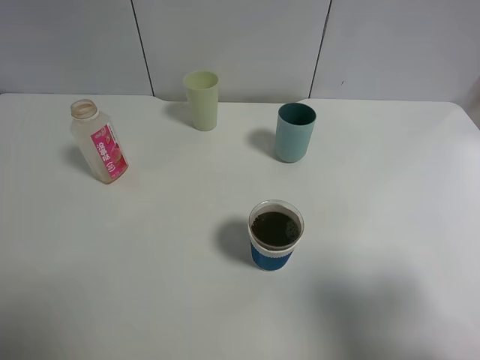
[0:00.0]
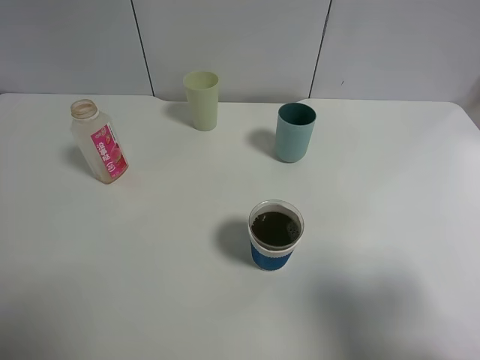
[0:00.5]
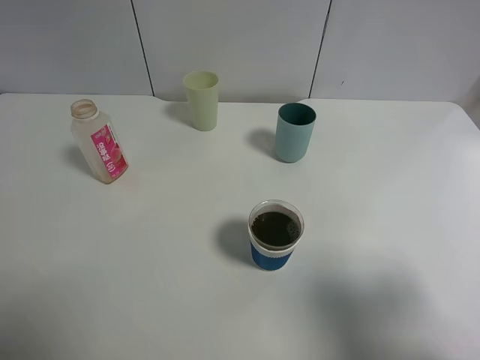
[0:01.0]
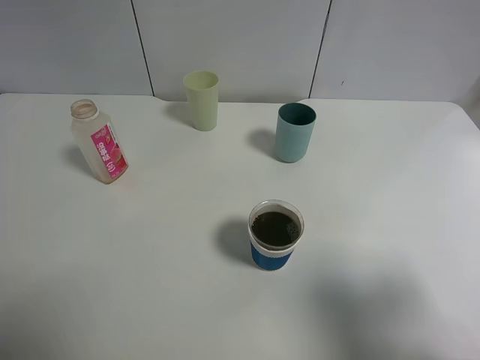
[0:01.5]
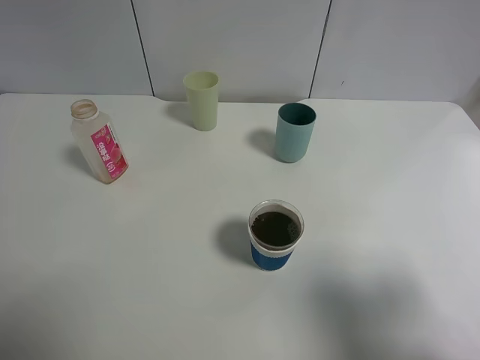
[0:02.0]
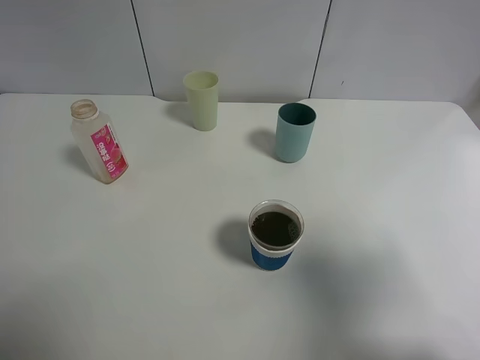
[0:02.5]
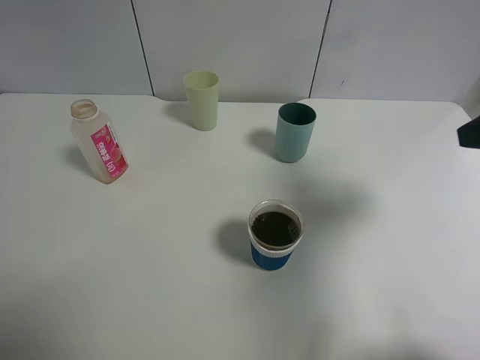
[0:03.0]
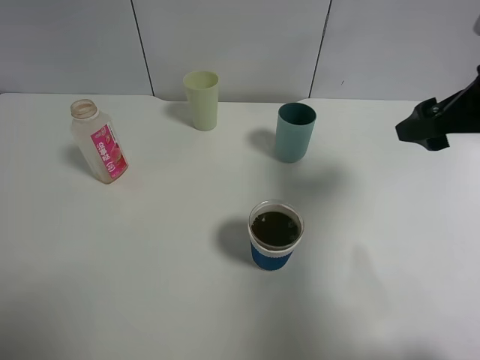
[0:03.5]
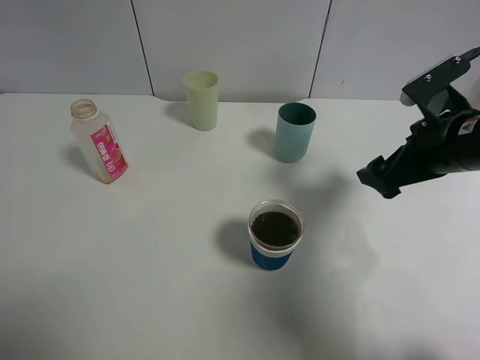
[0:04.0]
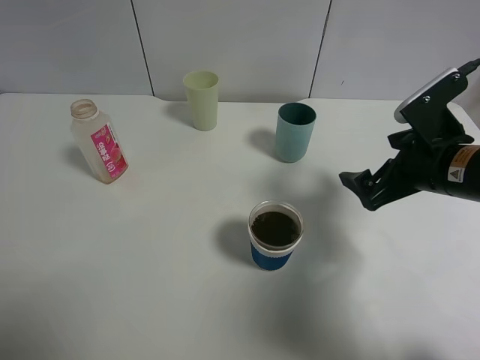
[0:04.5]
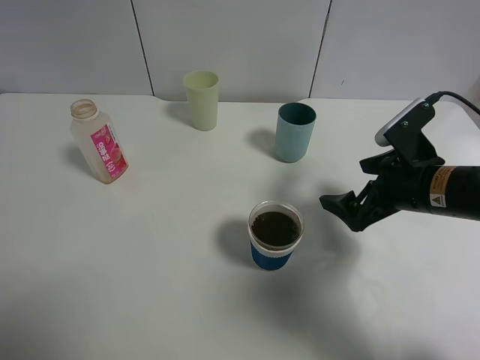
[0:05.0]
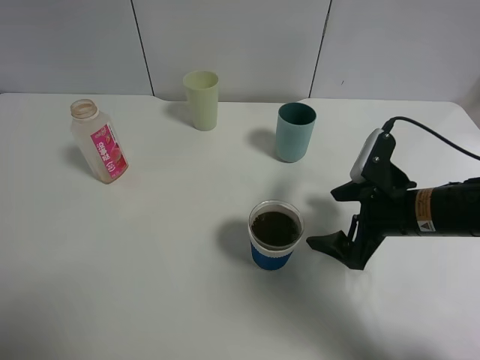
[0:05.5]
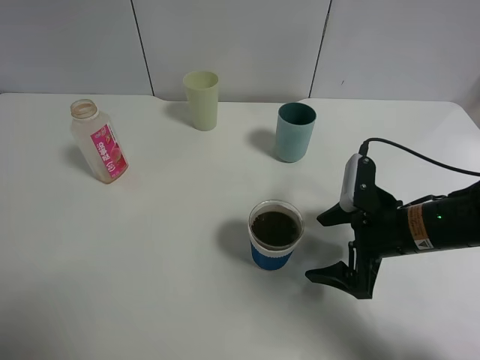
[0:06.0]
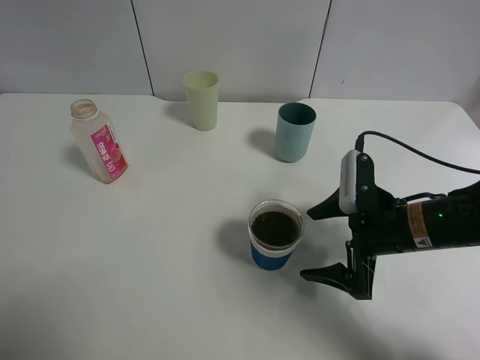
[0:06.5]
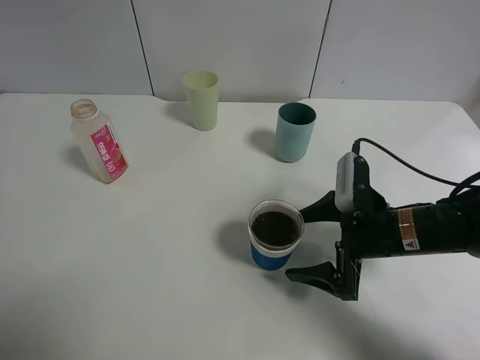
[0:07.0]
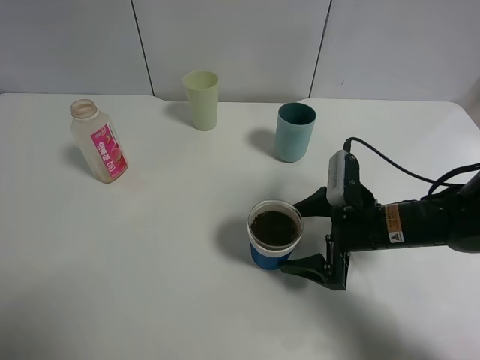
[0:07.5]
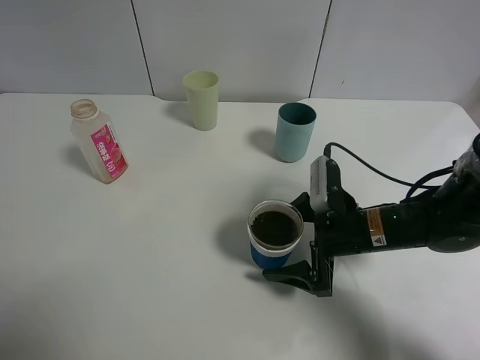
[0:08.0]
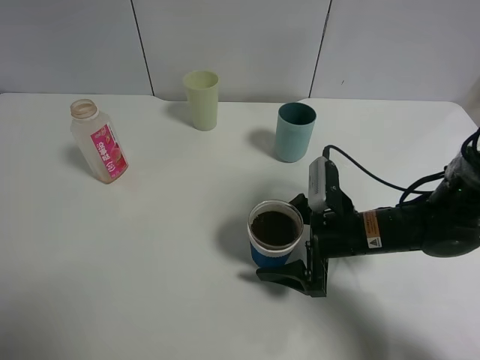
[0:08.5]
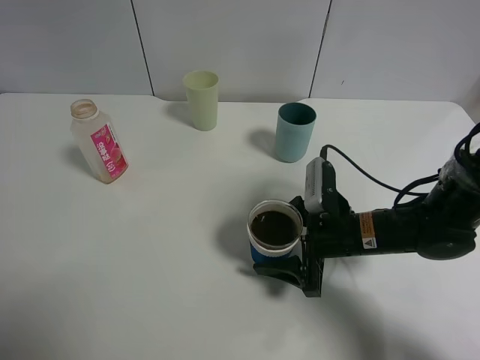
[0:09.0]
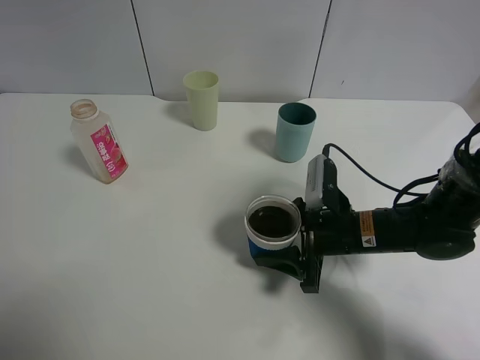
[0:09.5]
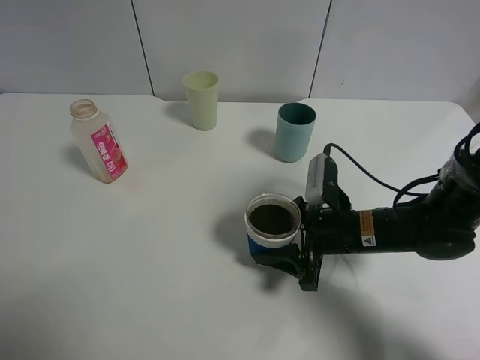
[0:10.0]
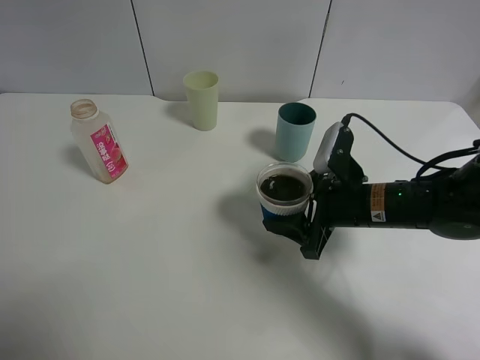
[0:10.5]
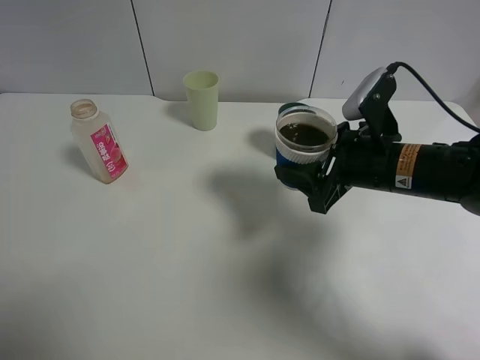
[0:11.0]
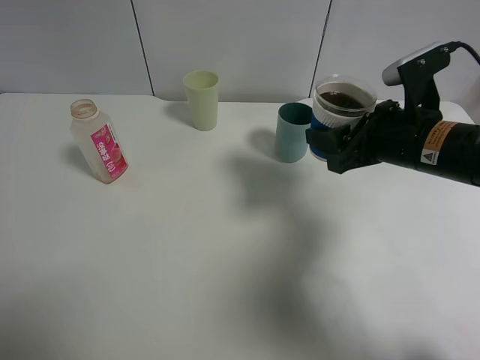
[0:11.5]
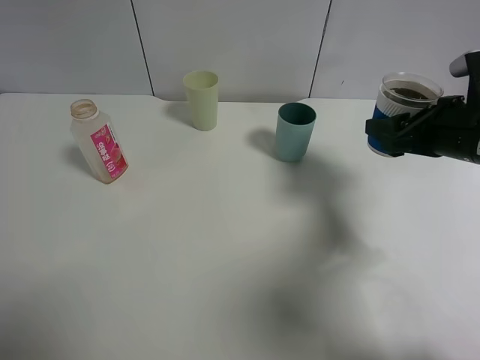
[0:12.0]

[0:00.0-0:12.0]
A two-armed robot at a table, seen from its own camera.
Task of the whole recording: use a clamp to hold the bottle of the drink, pour the beverage into a random cup, then clamp the cup containing the drink and pour the drink into another random cup.
Step, 0:00.0 to 0:10.0: Pick up the paper cup with right gripper.
0:02.0 to 0:04.0: The right gripper goes roughly 25 cm forward.
0:04.0 to 0:06.0: The right gripper moves downward, roughly 10 cm.
0:06.0 to 0:08.0: The right gripper ends up some 5 cm from where it was.
0:08.0 to 0:10.0: The right gripper closes up.
0:10.0 to 0:12.0: The right gripper shifts some 20 cm upward and to the right.

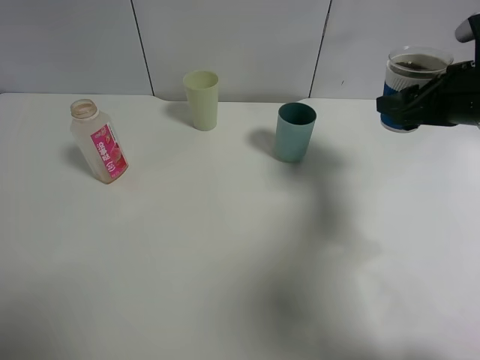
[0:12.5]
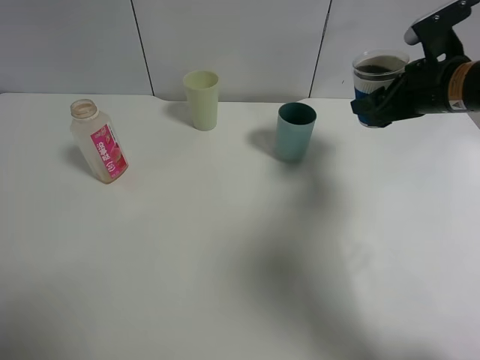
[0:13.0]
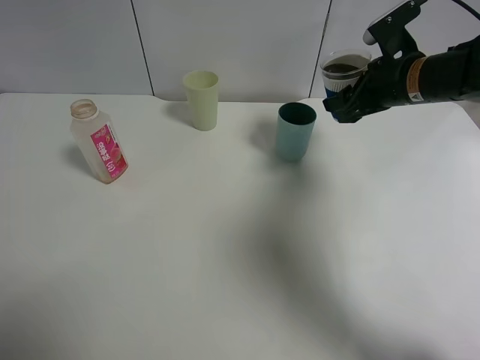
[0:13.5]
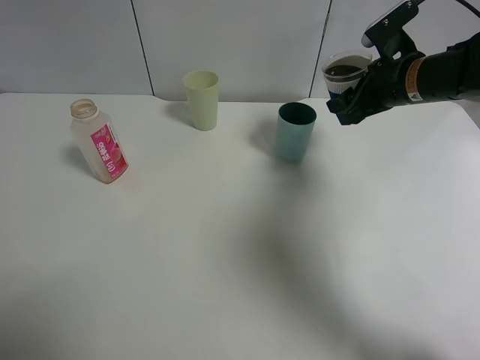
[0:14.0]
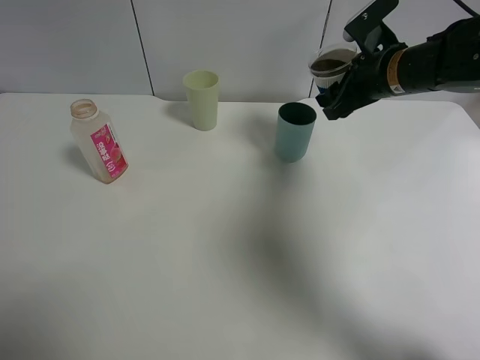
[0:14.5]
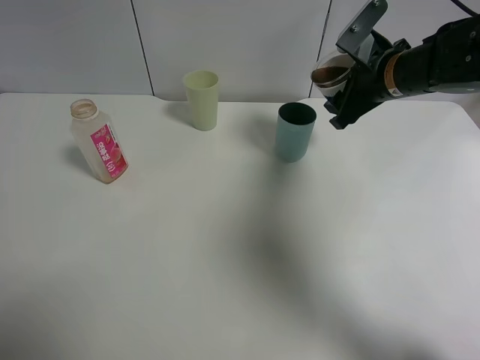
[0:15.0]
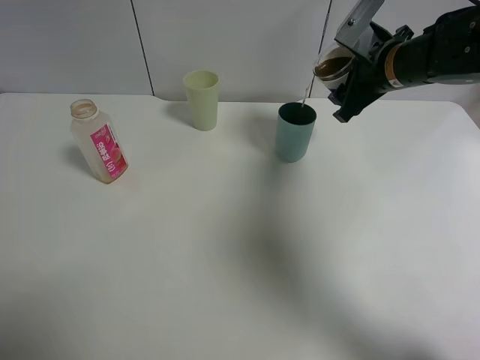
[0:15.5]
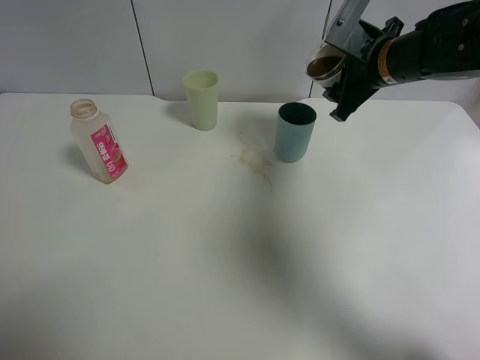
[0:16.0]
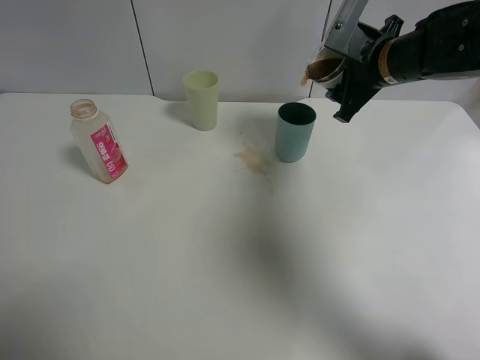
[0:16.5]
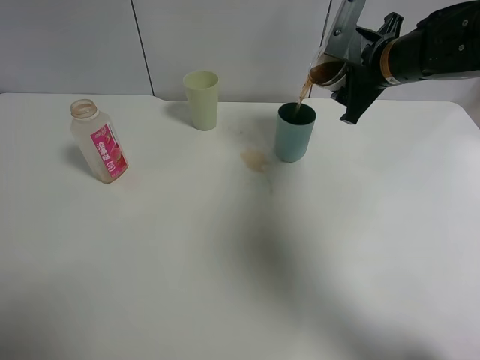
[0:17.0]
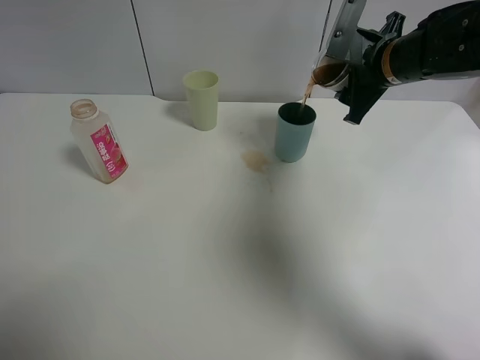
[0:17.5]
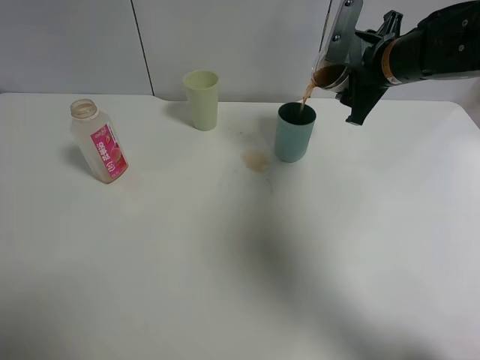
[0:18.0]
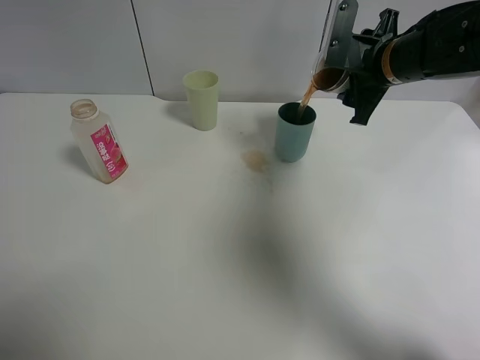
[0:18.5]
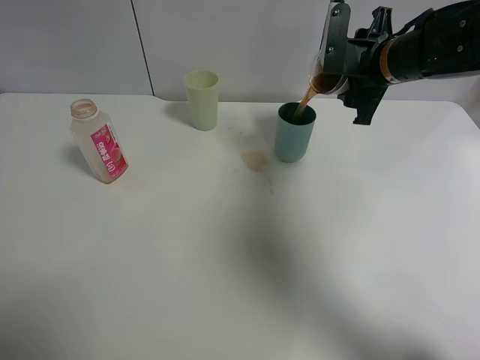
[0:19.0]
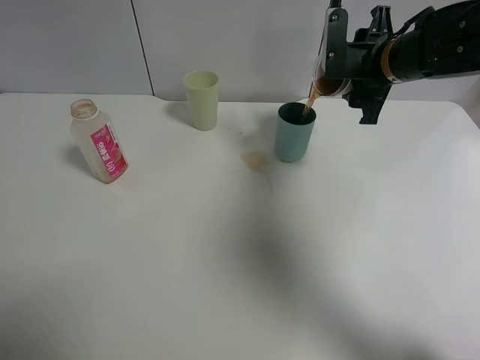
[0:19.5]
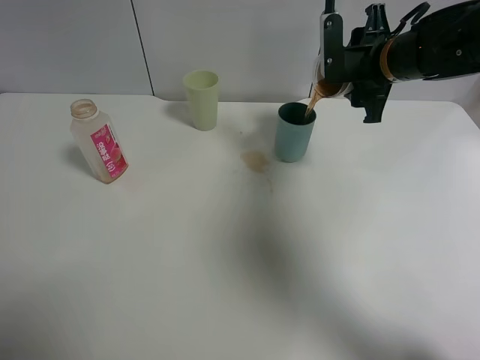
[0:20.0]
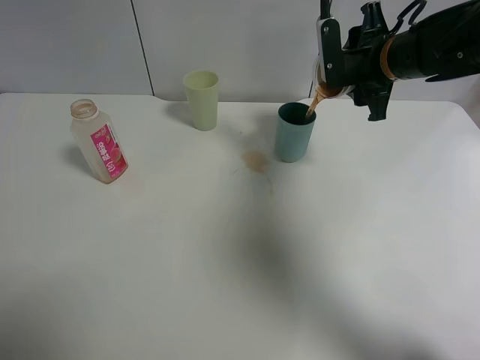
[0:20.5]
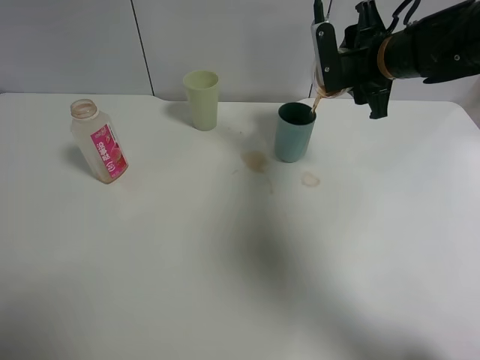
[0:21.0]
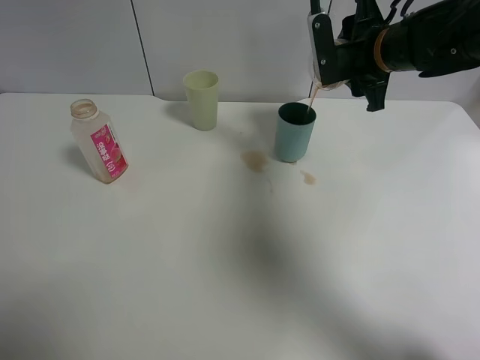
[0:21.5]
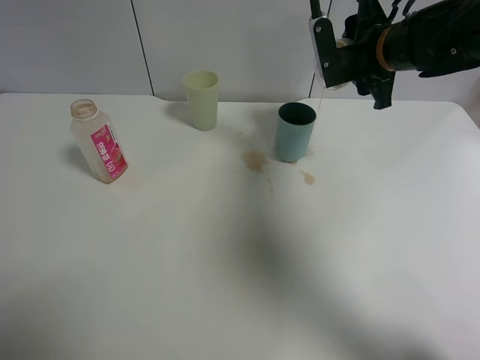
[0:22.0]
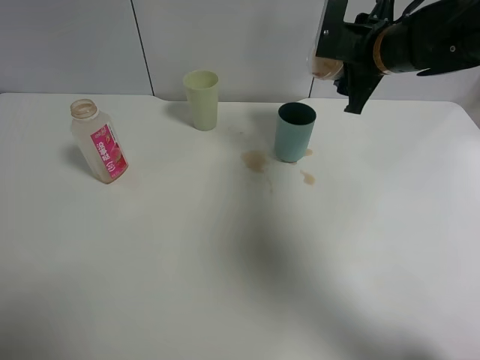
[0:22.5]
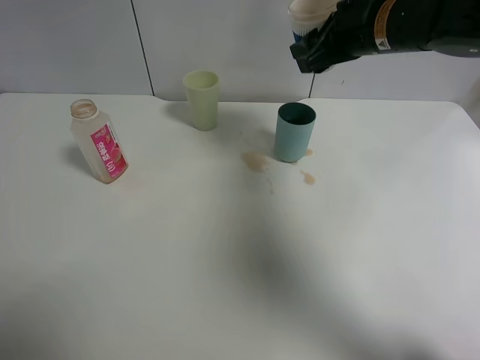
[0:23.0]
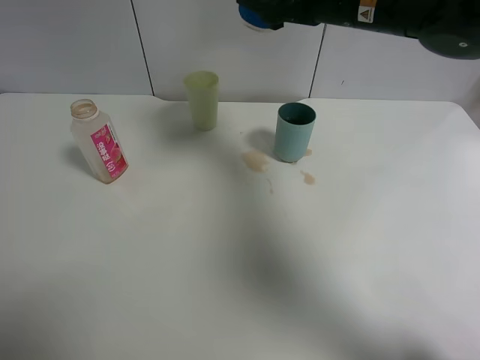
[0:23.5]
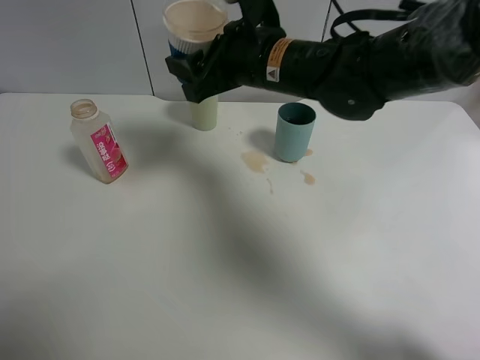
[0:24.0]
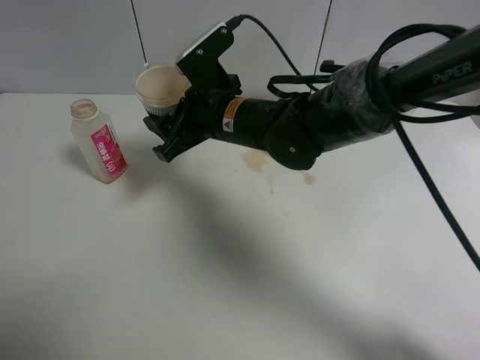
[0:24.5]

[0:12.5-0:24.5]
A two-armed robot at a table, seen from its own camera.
Task of the whole recording: use a clamp to hold the bottle of the drink, pour the beverage into a random cup, then clamp the cup containing the drink and pour the drink into another random cup.
Step, 0:12.5 to 0:22.0: Pour the drink into the blue plastic cup with right gripper.
0:12.5 to 0:14.5: The right gripper goes roughly 10 cm forward and to the left.
0:16.5 to 0:18.5: The grippers move only a little.
0:22.5 to 0:24.5: The right gripper is displaced to the left by about 20 cm.

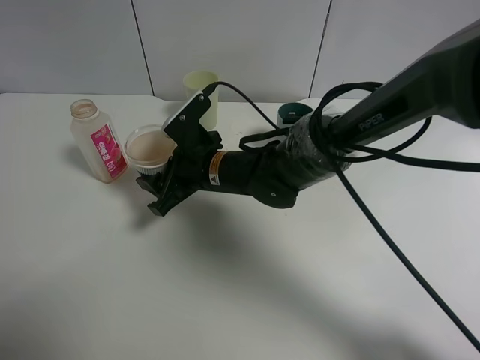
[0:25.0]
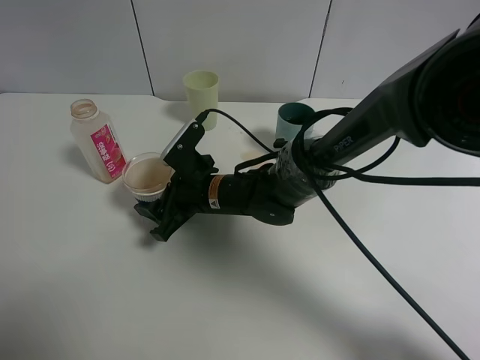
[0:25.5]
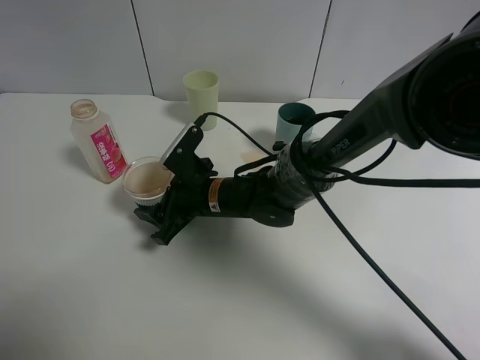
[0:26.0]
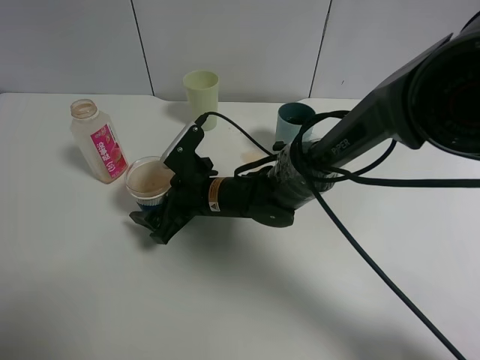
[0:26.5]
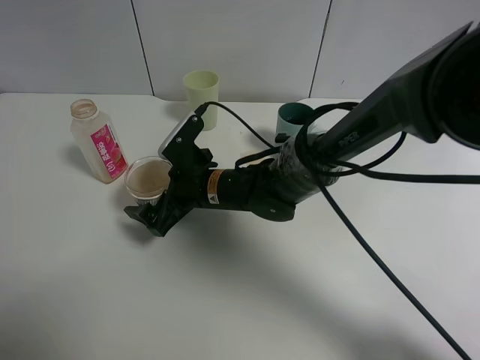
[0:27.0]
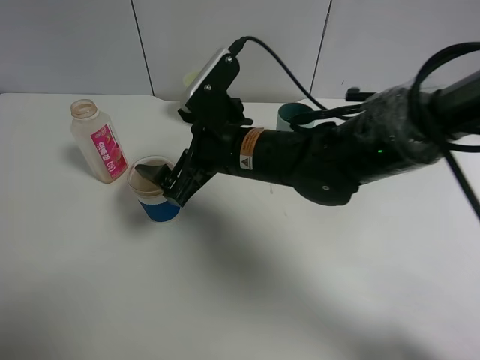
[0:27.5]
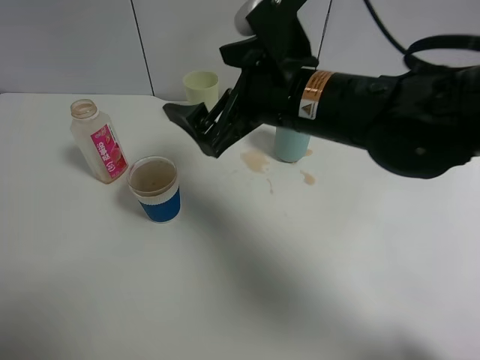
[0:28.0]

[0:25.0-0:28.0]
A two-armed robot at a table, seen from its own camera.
Task of the whole recording: use a clamp to hold the bottle of the drink, pour the beverage into a random cup, then clamp the cup containing the drink and pour the drink into another random cup.
Step, 0:25.0 to 0:27.0: Place the paper cup on the table with right gripper.
0:25.0 to 0:26.5: The right gripper opens up.
0:26.5 to 0:28.0: The right gripper shifts approximately 20 cm upward and to the right.
